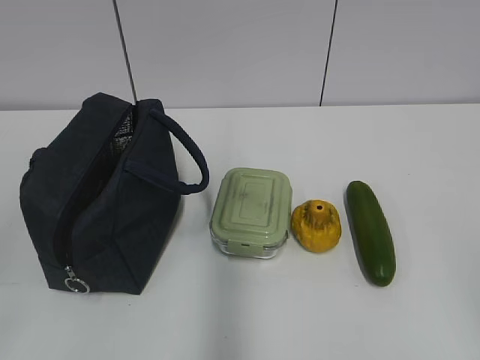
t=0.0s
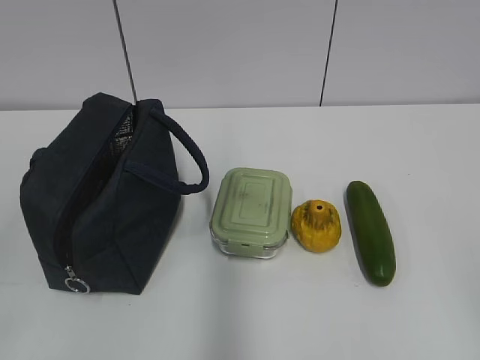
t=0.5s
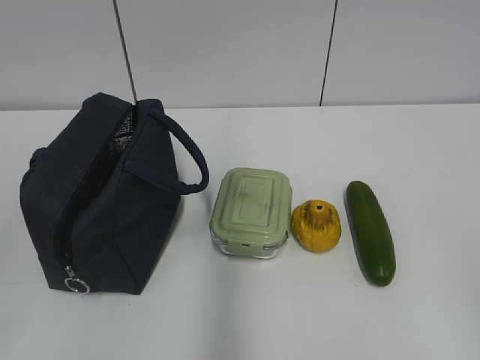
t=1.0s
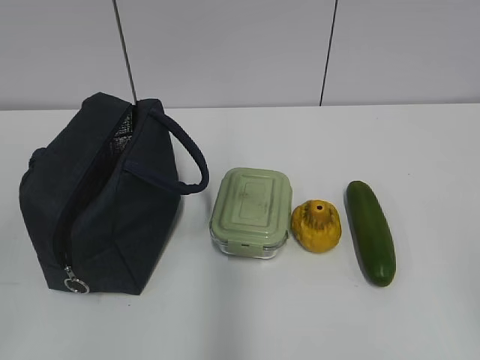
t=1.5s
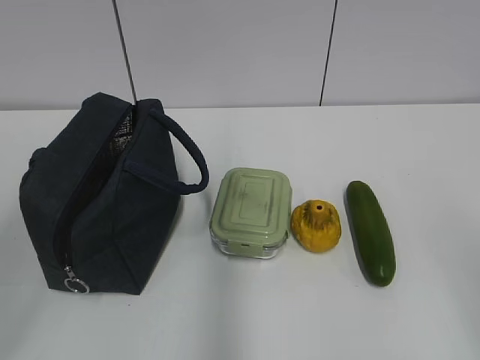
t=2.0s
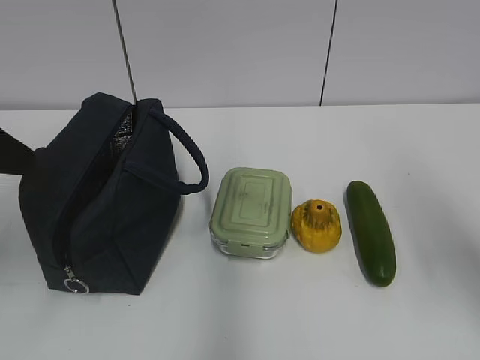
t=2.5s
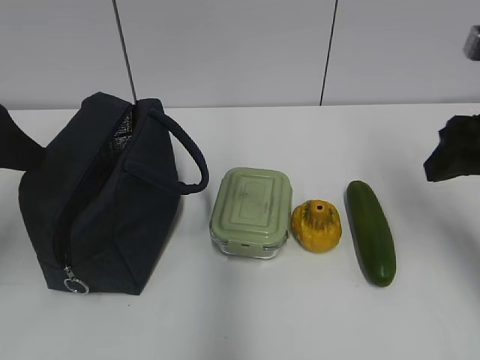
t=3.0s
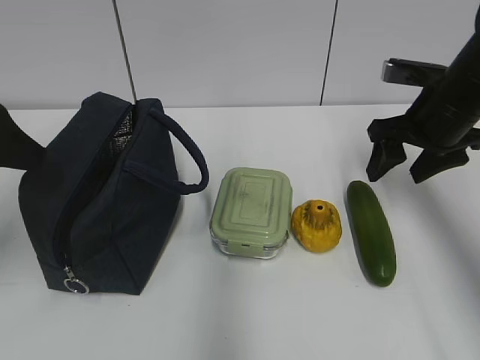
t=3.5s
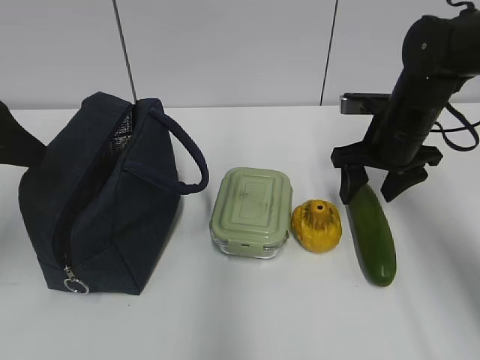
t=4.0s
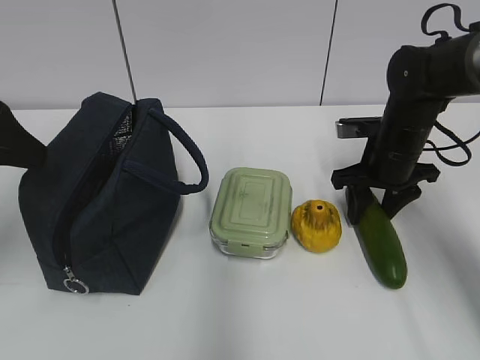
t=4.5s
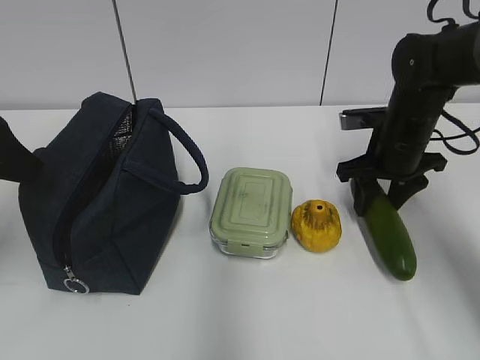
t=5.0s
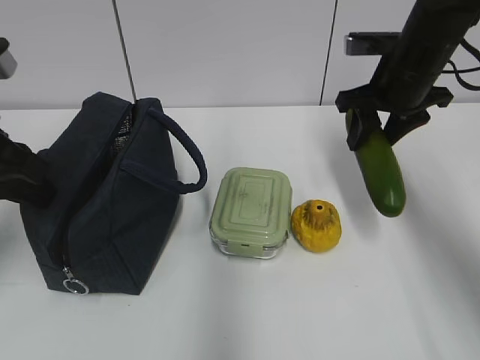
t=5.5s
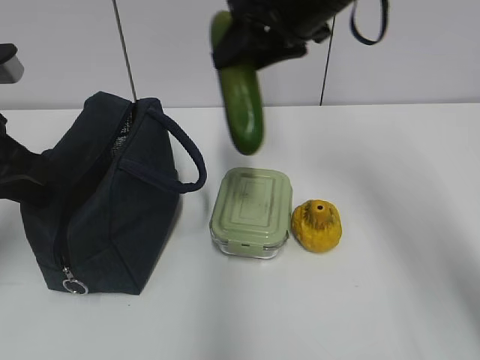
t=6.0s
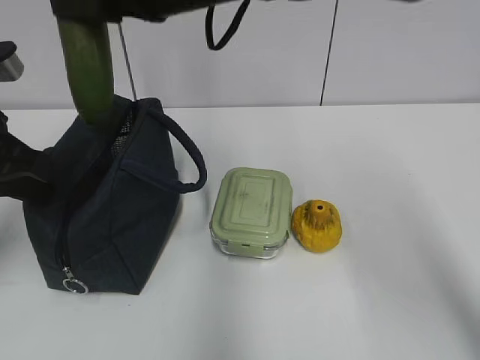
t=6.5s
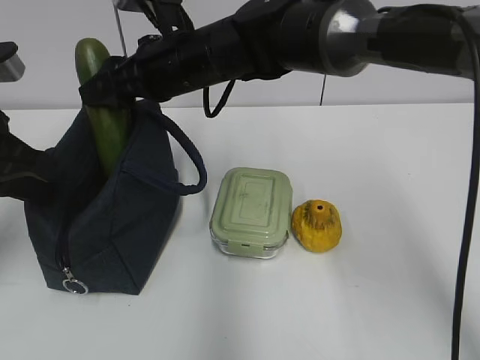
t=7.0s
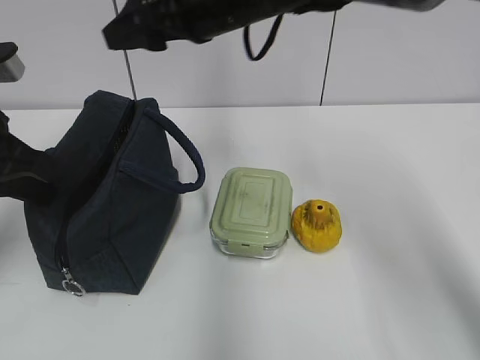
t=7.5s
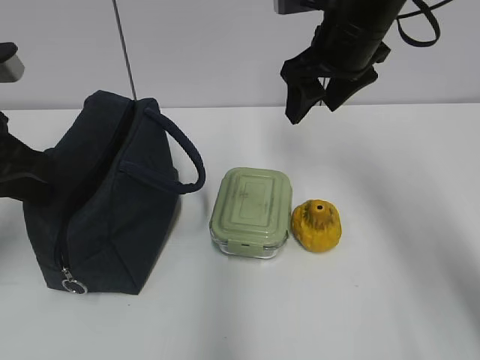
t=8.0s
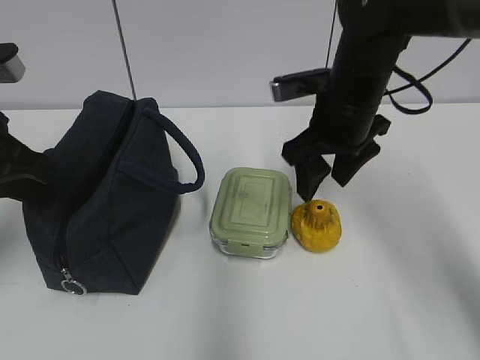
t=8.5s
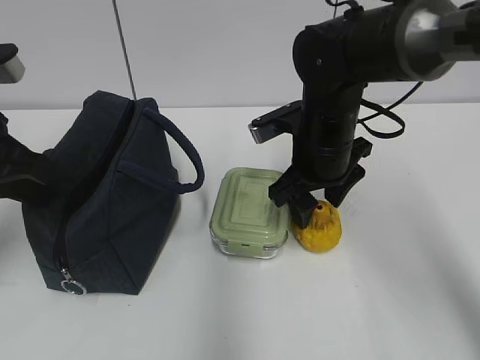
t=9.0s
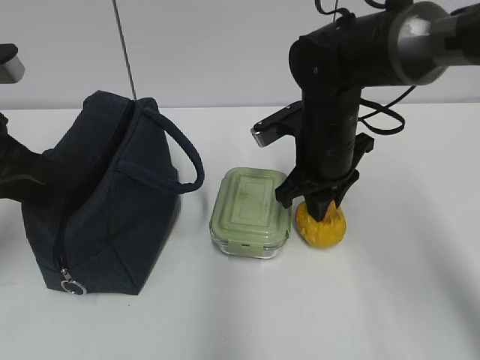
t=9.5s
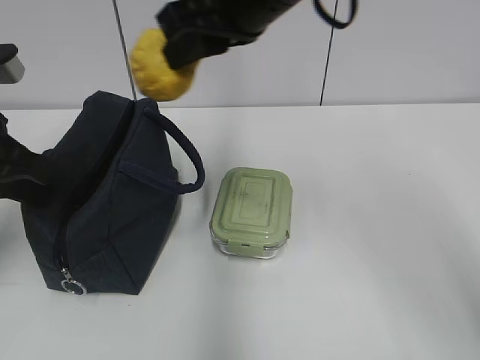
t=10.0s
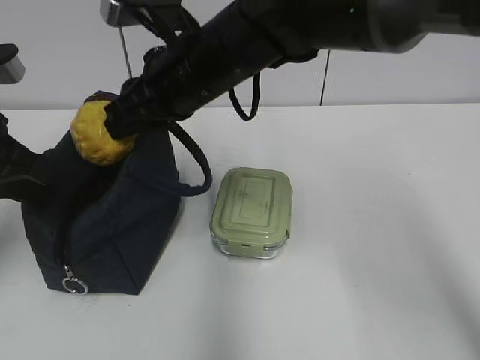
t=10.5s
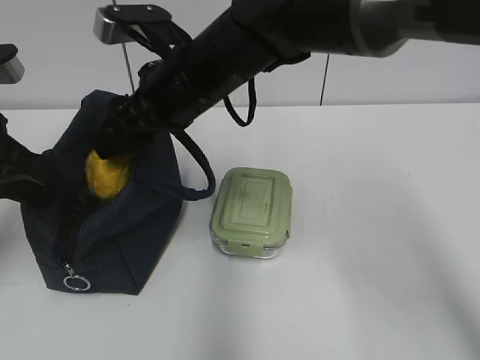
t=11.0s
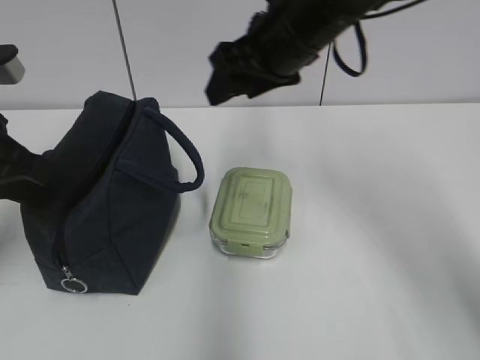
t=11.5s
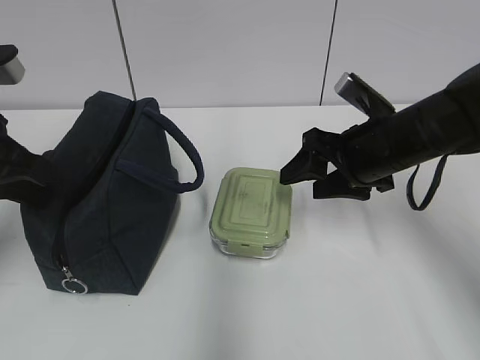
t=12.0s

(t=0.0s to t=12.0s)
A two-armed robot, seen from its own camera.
Step, t=0.0s - t=2.5s: Grab the lunch bag with your left hand.
Step, t=3.5s - t=4.5s: Grab the cucumber with your right hand.
Step, t=5.0s - t=7.0s: Place it into the bag with your right hand.
Step, t=7.5s - t=9.0s: Grab the pear with your right hand.
Step, t=9.5s - t=11.0s: Place it into the bag with your right hand.
t=2.0s - t=4.0s: The left gripper heads forward, covering approximately 15 cm; the right gripper goes some 35 cm forward.
t=4.0s - t=6.0s: The right gripper travels upward and to the left by some 20 cm; the left gripper shifts by about 5 cm, and closes up.
t=6.0s - t=8.0s: The right gripper travels to the left and back again, about 10 cm each way.
t=8.0s - t=10.0s: The right gripper goes approximately 15 cm to the left, backward and upward, and closes.
t=10.0s - t=12.0s: The right gripper goes roughly 20 cm downward and to the right, and opens.

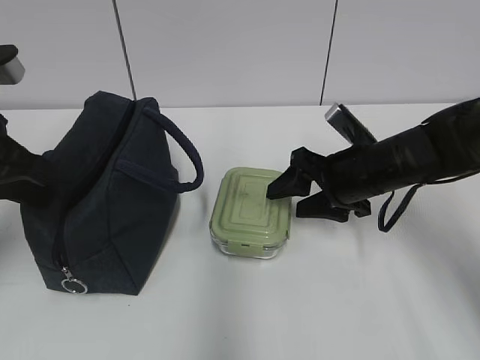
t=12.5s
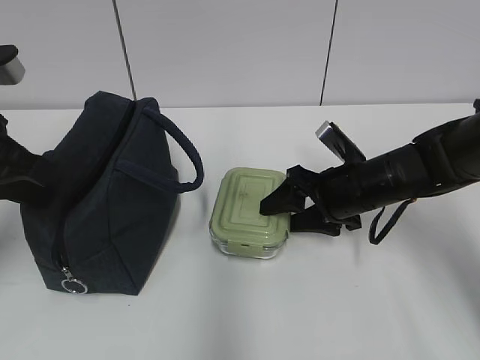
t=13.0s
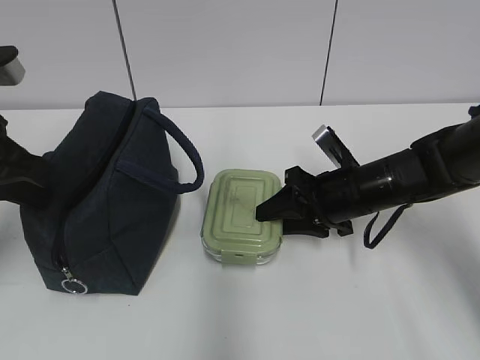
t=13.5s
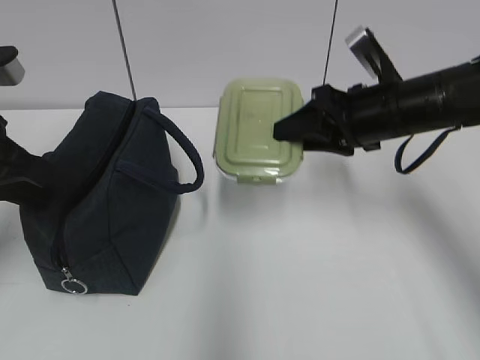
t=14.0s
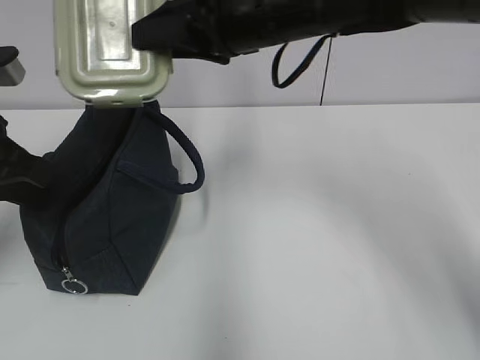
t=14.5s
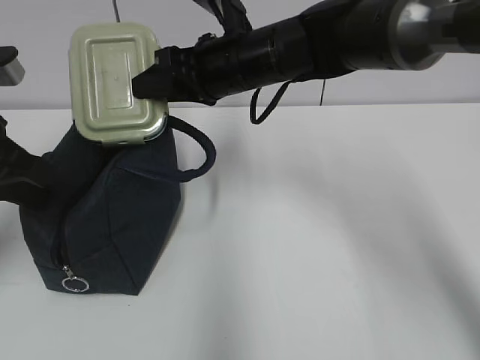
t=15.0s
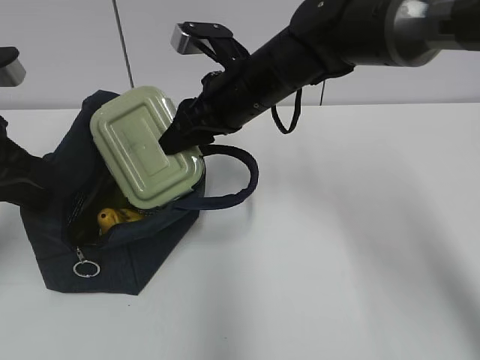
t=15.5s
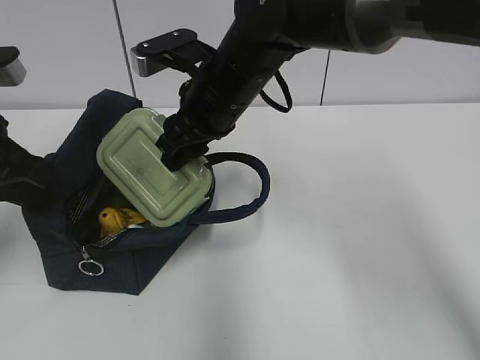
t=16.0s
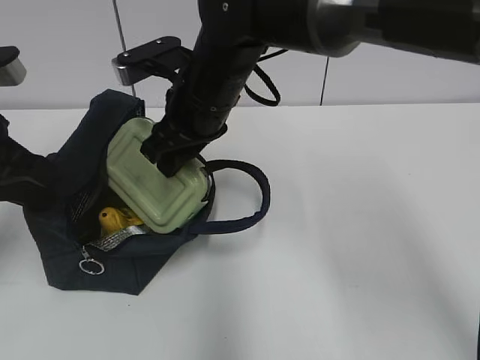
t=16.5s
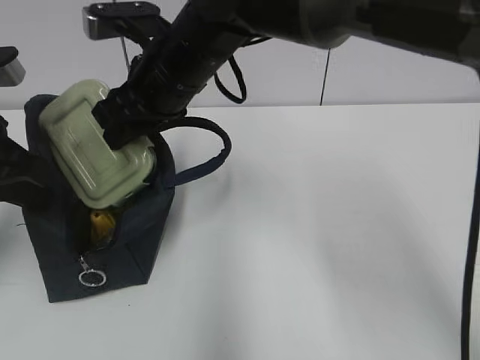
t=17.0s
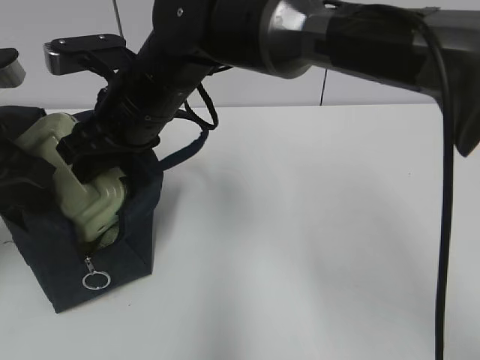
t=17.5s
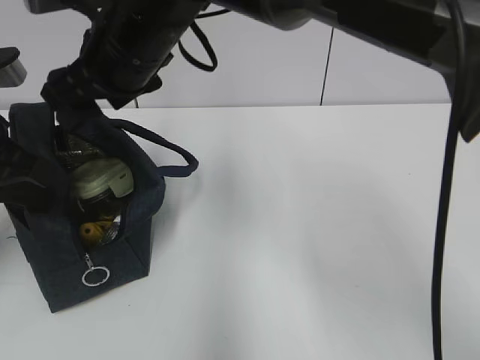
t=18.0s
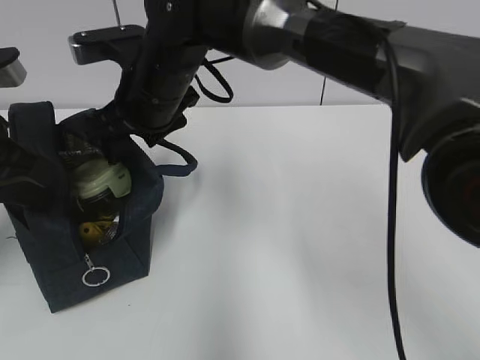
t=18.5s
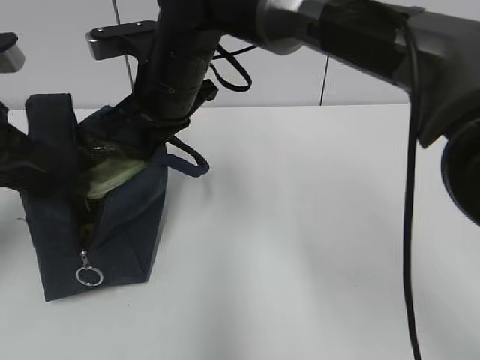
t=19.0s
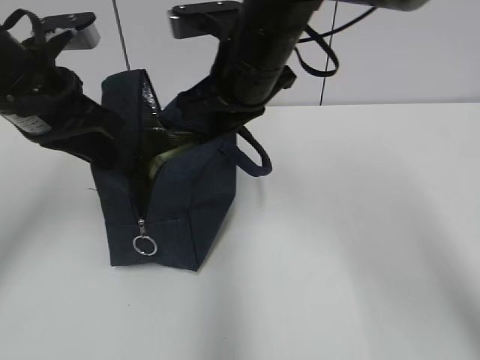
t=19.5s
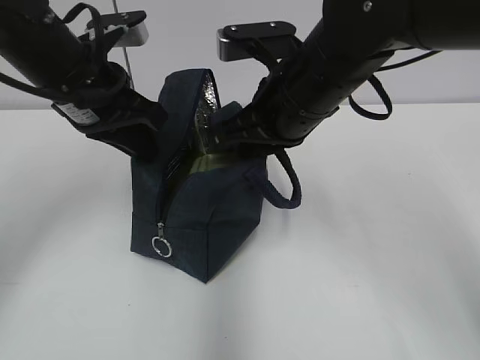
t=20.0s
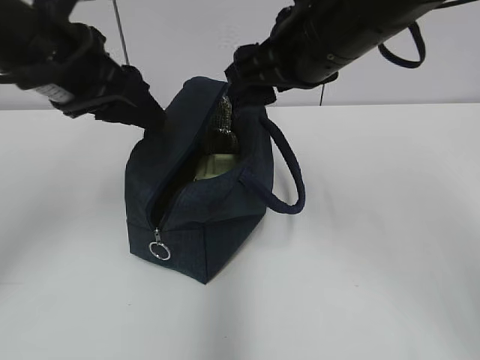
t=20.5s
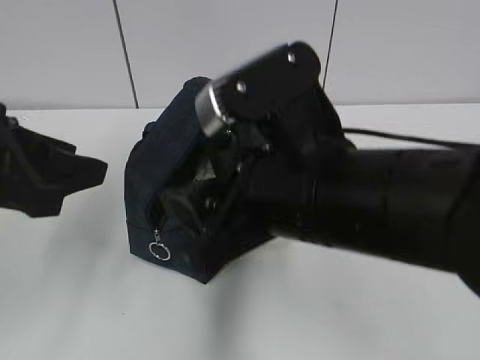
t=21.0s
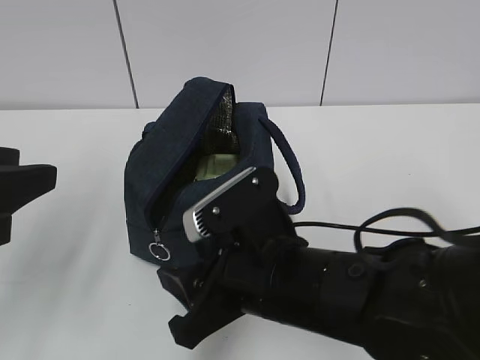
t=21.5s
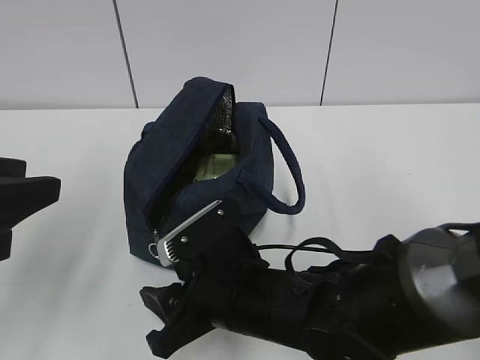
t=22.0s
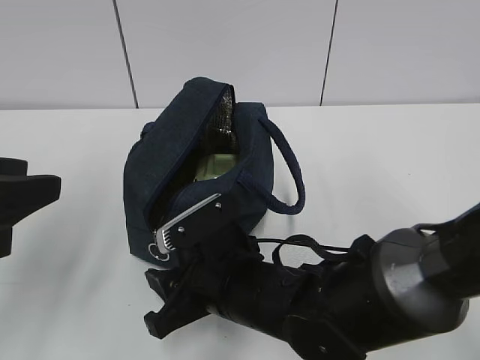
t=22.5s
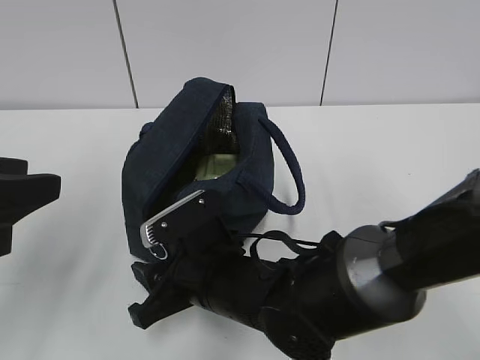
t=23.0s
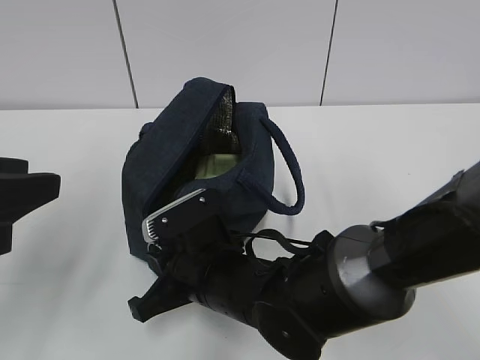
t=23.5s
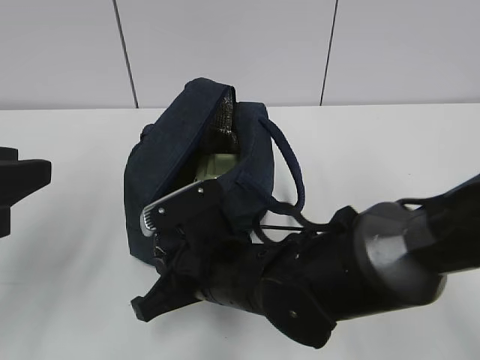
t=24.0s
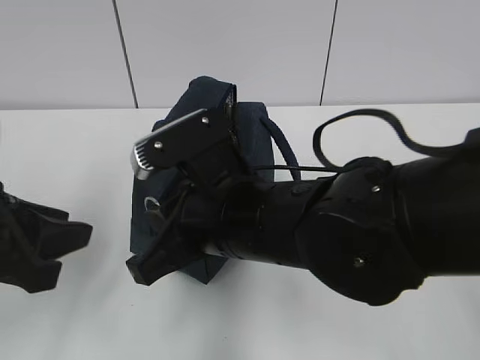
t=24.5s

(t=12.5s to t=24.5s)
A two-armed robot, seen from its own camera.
Step, t=18.0s - t=18.5s: Grab the lunch bag with your right hand.
Step, t=19.0s - t=20.0s: Move the lunch bag to the right.
t=12.5s - t=14.5s: The right gripper shifts some 20 cm upward and to the left.
t=14.5s - t=16.5s: The right gripper is displaced downward and to the left by some 10 cm.
t=16.5s - t=18.5s: The right gripper travels to the left by about 5 cm.
t=18.5s - t=20.5s: The left gripper shifts about 5 cm to the right, and opens its fingers. Meanwhile the right gripper shifts some 20 cm to the right, upward and backward, and closes, then reopens.
t=20.5s - t=22.5s: The right gripper shifts about 20 cm downward. The left gripper shifts roughly 15 cm backward and to the left.
t=22.5s - t=24.5s: The right gripper travels upward by roughly 10 cm, and closes its fingers.

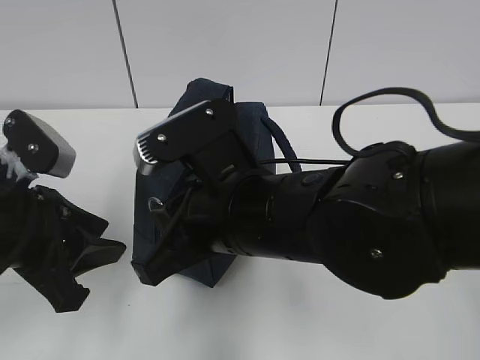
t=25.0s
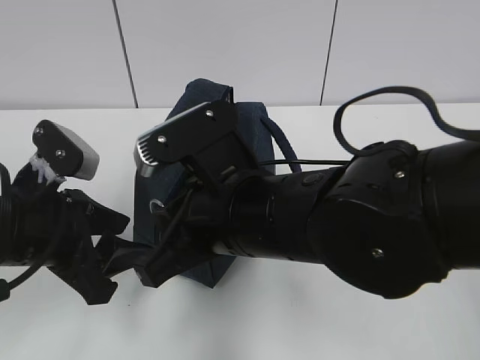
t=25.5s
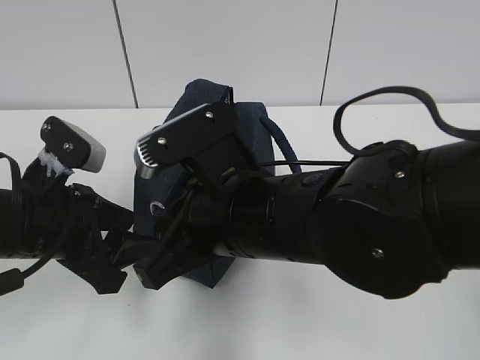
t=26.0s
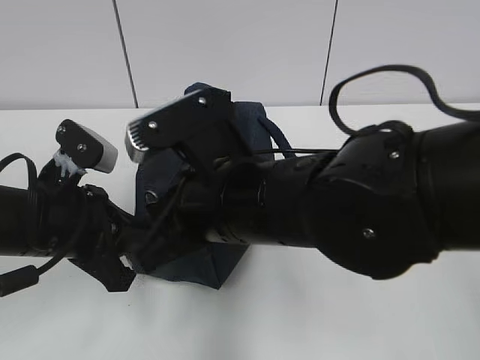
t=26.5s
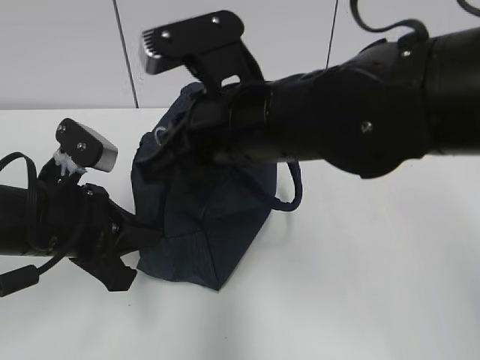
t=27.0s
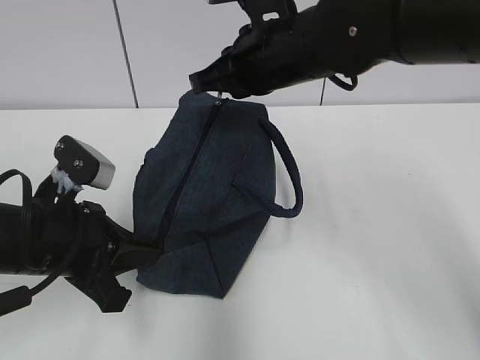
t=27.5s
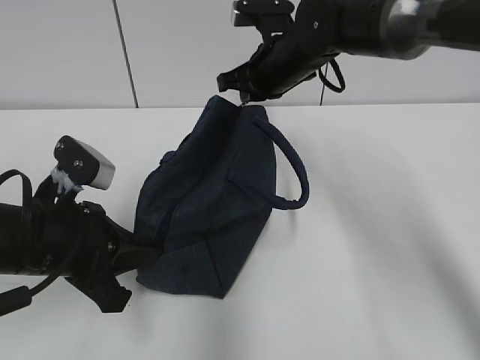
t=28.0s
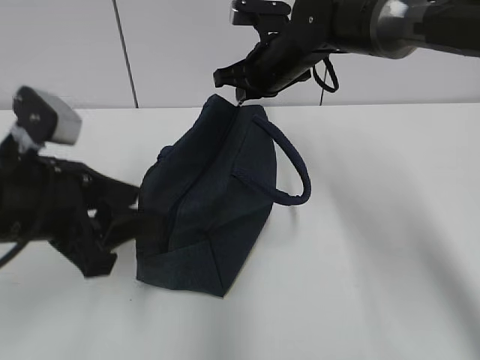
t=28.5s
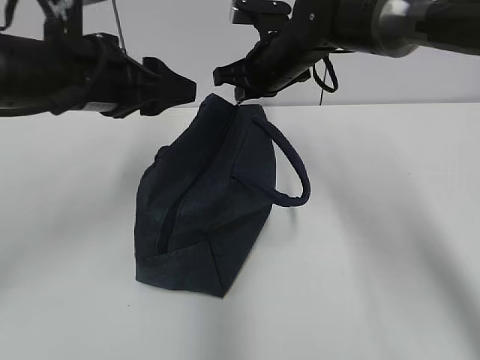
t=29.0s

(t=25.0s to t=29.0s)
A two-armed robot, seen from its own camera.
t=25.0s - t=27.0s: The left gripper closes up. The right gripper heads upward, covering some 5 cm.
t=27.0s - t=29.0s: The left gripper moves upward and forward, about 15 cm, and opens; the right gripper is displaced forward by roughly 20 cm.
